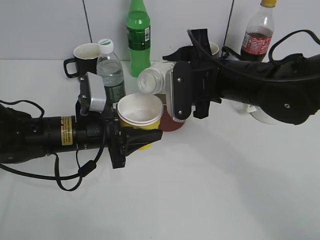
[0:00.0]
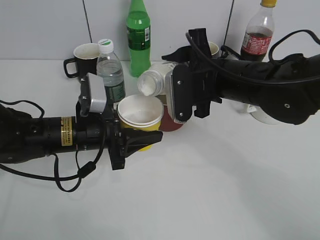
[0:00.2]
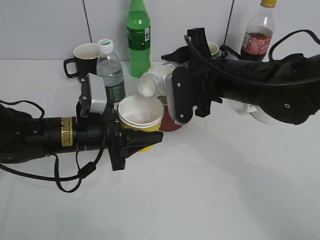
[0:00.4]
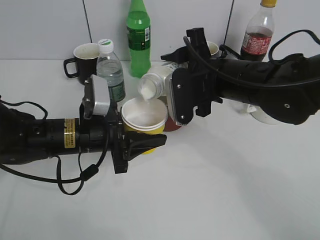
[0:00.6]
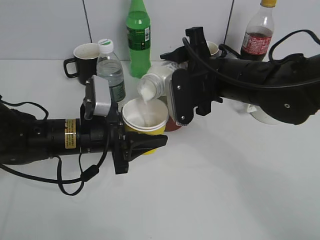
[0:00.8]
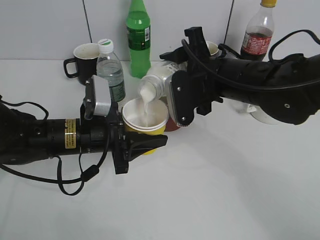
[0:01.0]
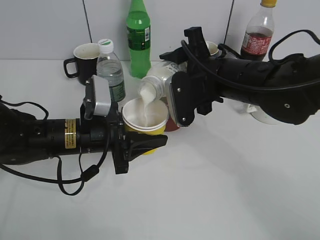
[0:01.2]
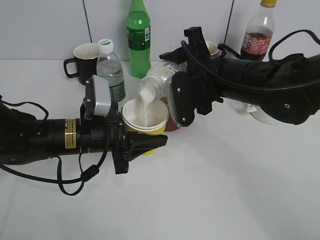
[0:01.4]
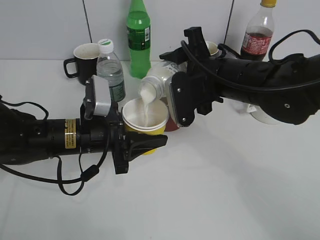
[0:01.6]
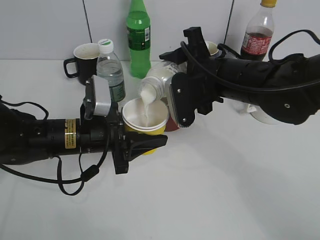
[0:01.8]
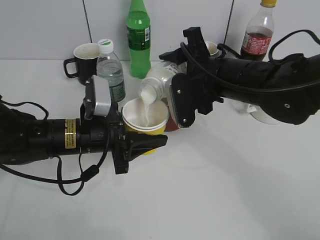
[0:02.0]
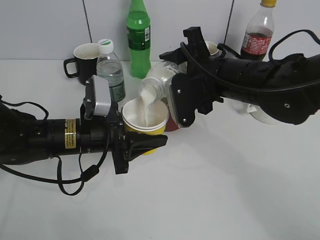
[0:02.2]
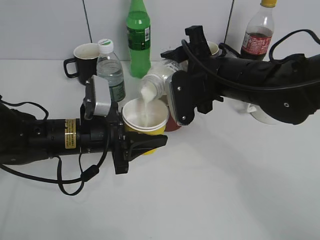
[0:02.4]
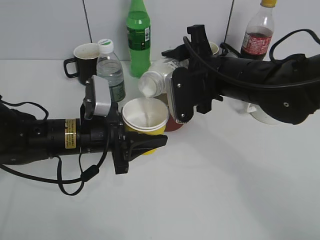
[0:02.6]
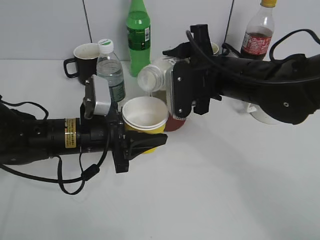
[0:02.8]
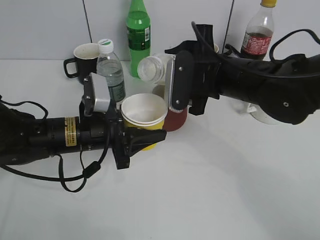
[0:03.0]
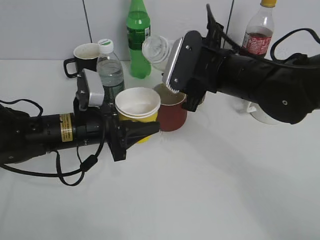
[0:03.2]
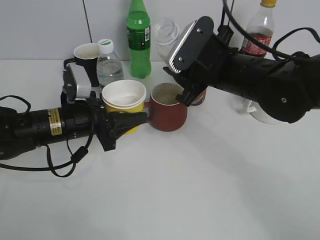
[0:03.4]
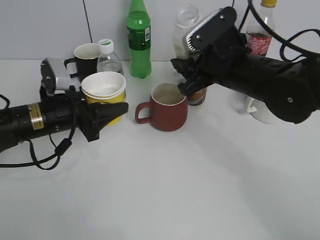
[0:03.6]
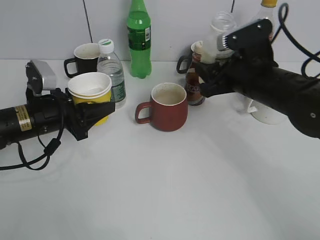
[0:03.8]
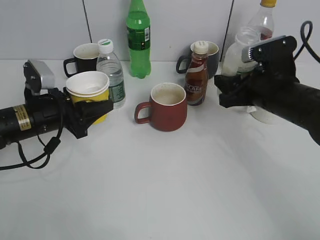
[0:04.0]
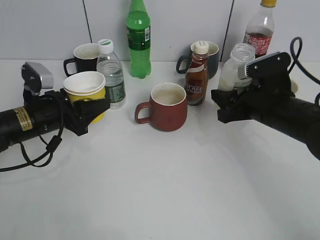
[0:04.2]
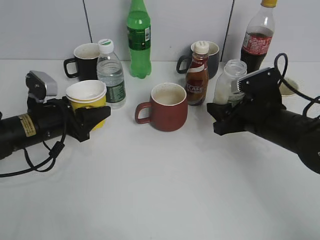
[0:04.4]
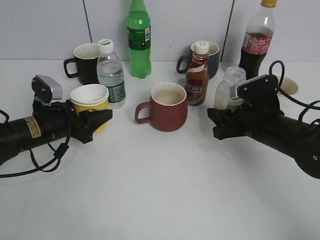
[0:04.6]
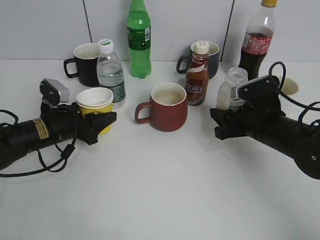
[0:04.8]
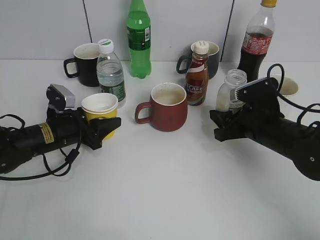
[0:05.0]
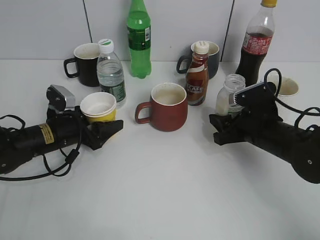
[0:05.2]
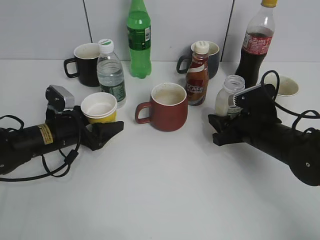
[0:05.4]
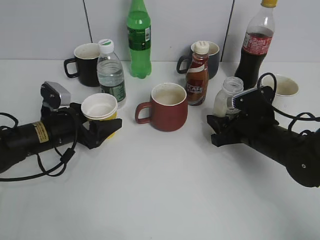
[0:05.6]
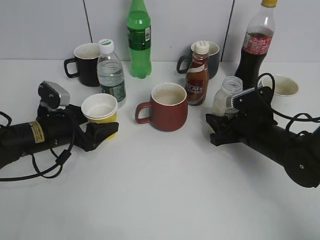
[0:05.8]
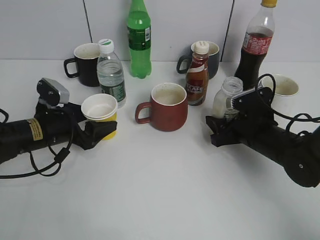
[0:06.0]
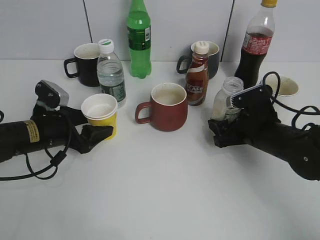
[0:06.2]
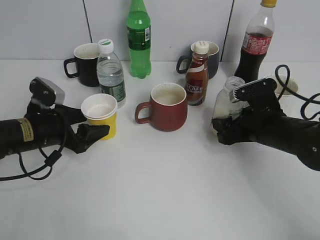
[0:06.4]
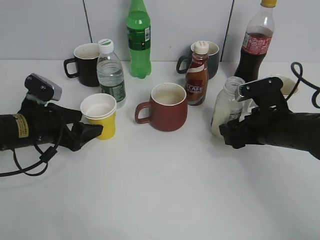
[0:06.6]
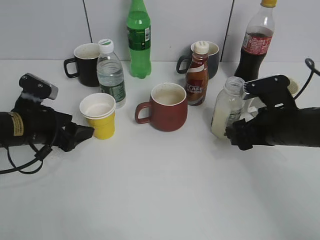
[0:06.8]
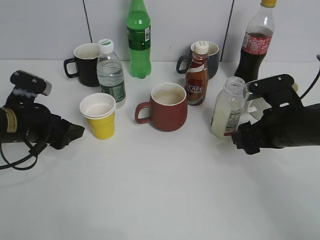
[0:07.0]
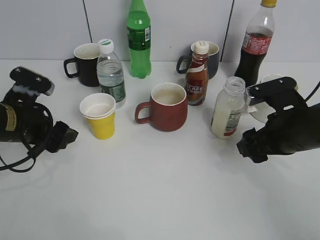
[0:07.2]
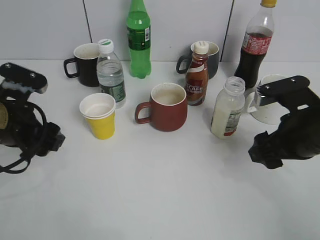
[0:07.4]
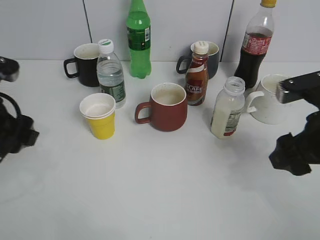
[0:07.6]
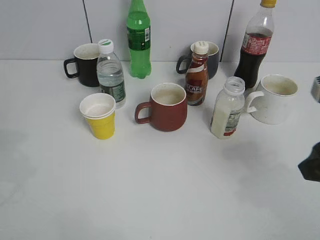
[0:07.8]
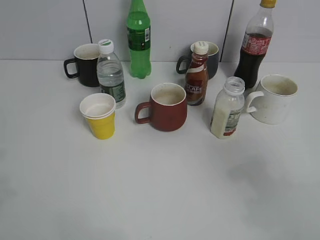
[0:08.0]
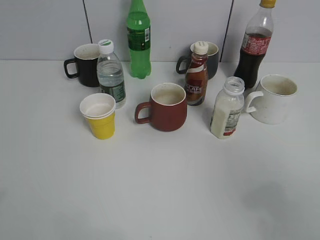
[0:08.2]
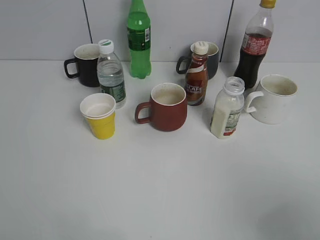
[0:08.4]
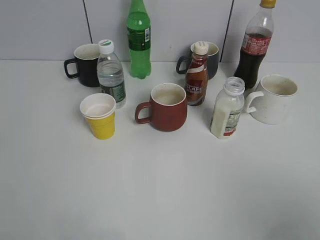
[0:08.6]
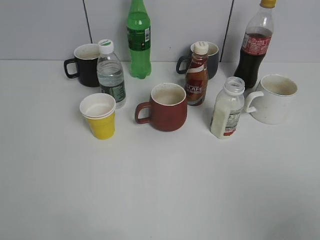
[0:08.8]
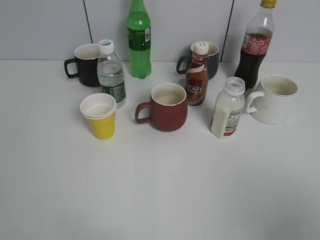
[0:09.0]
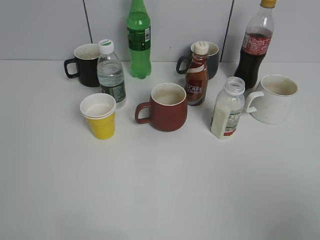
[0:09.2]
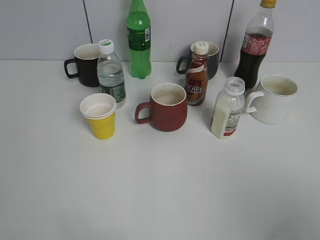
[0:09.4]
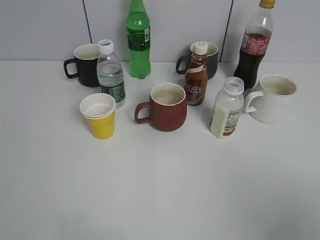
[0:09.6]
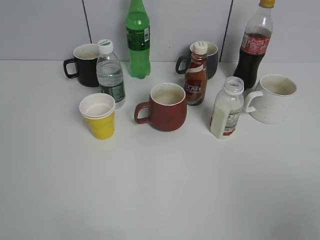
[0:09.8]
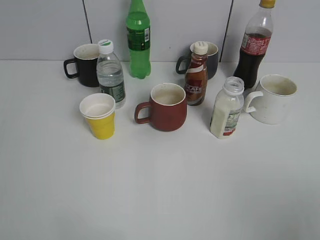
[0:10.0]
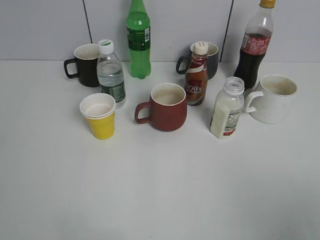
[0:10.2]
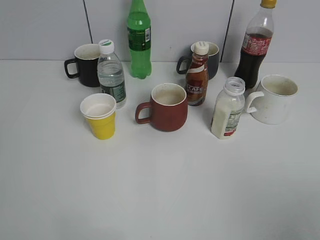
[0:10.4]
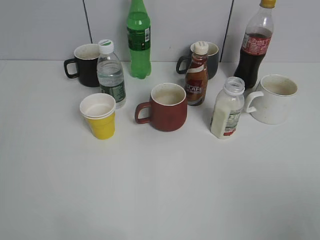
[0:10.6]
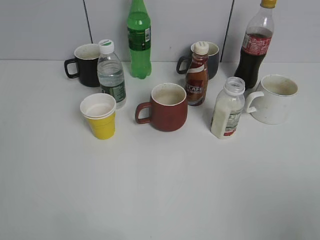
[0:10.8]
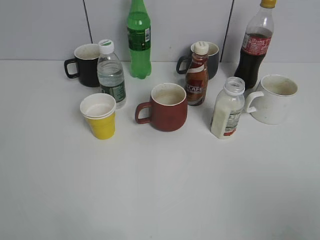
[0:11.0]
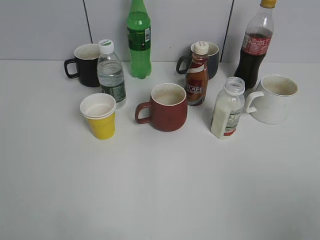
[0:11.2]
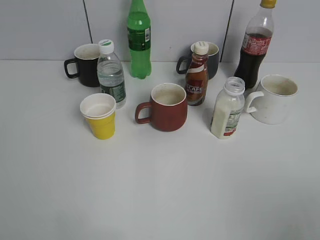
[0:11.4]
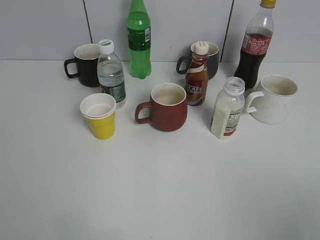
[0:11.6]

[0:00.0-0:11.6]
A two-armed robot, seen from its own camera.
Step, 0:00.0 to 0:02.8: Pour the yuexian Milk from bottle to cup with right gripper.
Step, 0:03.0 to 0:06.6: Place the yuexian Milk bottle on the table with right gripper.
0:00.0 to 0:02.8: The grippers move only a little.
0:02.8 to 0:04.4: The left gripper heads to the left, covering roughly 10 cm. The right gripper shifts roughly 15 cm to the right and downward.
0:04.4 to 0:05.8: The left gripper opens its fingers.
0:05.8 to 0:07.2: The grippers both shift upward by some 5 cm. The right gripper opens up.
0:07.2 to 0:08.8: The grippers both shift backward and upward by roughly 30 cm. The left gripper closes.
0:10.2 to 0:11.6: Both grippers stay put.
